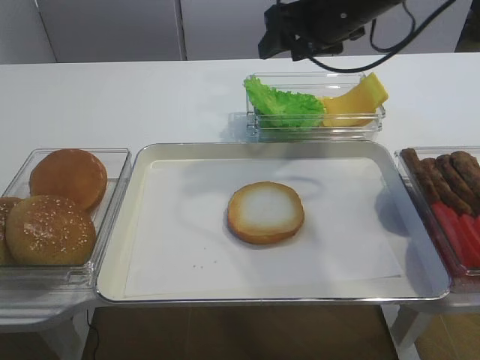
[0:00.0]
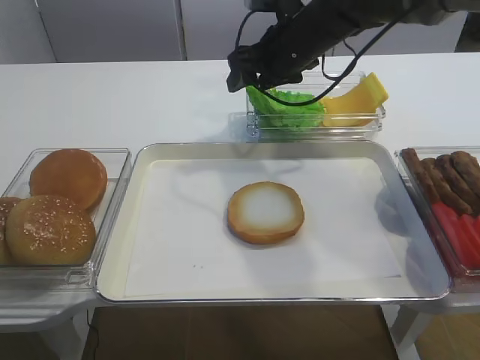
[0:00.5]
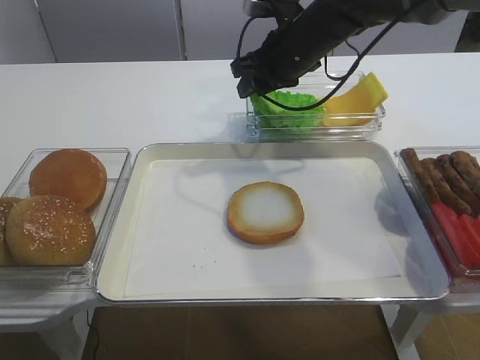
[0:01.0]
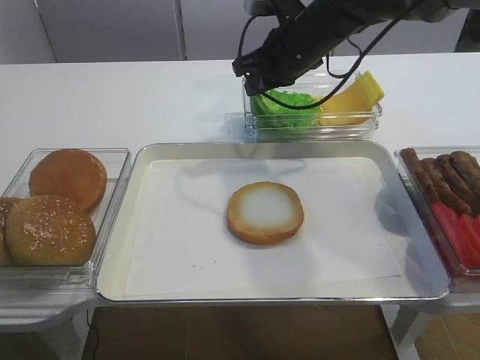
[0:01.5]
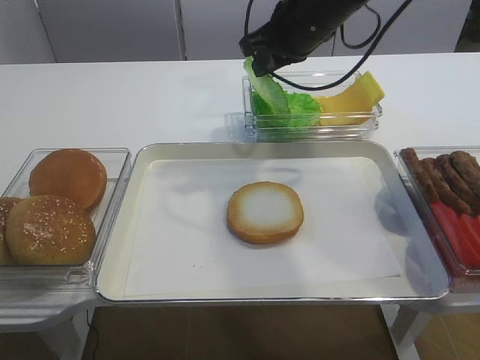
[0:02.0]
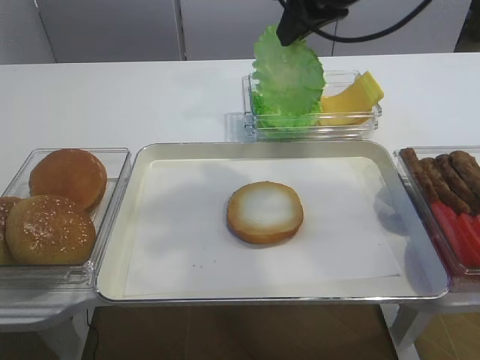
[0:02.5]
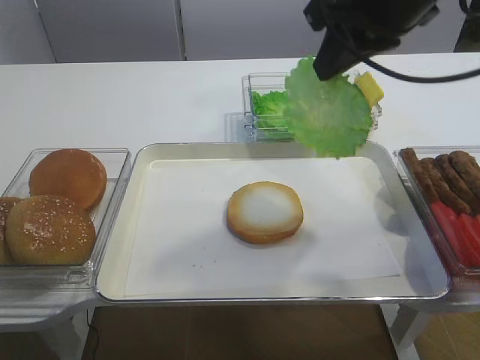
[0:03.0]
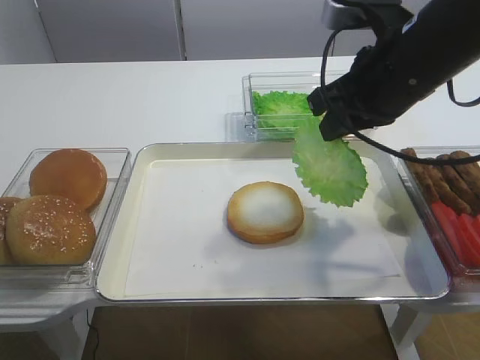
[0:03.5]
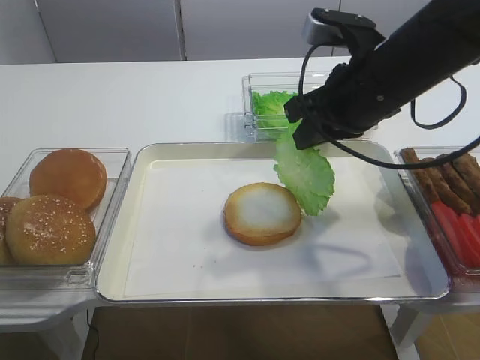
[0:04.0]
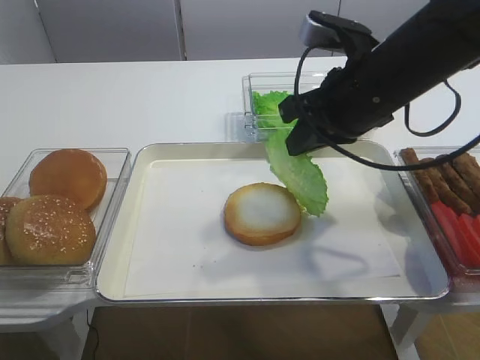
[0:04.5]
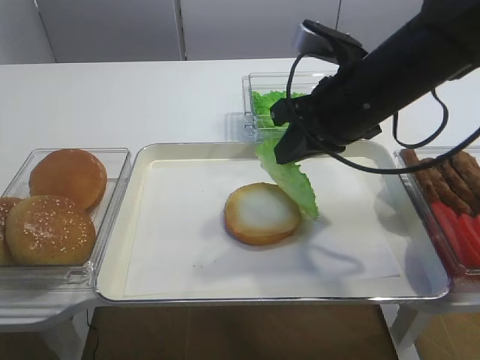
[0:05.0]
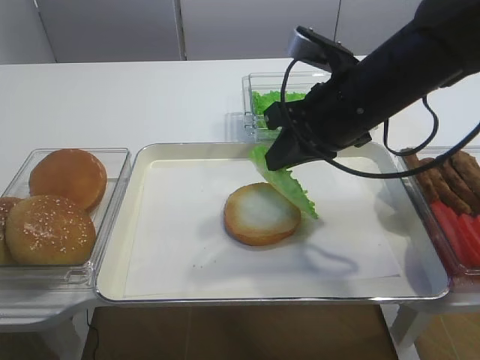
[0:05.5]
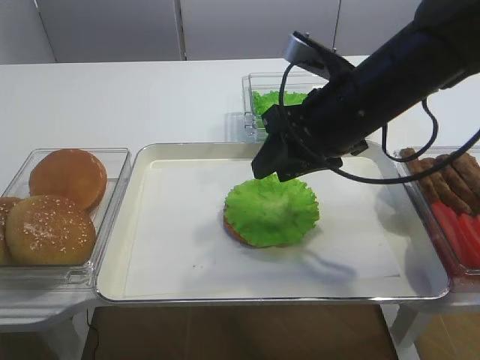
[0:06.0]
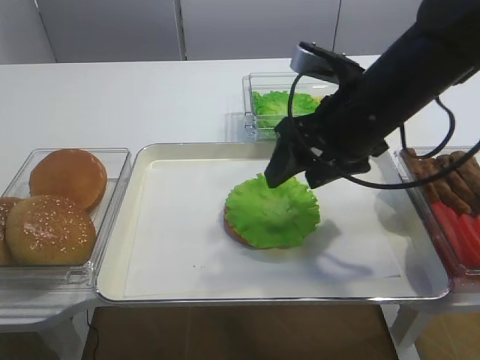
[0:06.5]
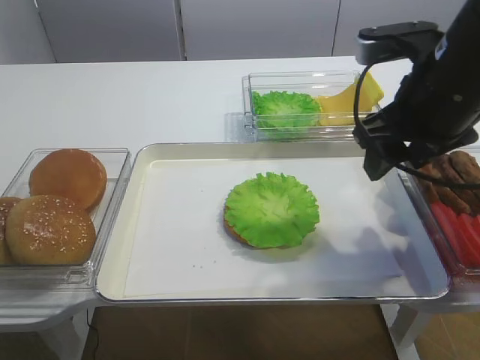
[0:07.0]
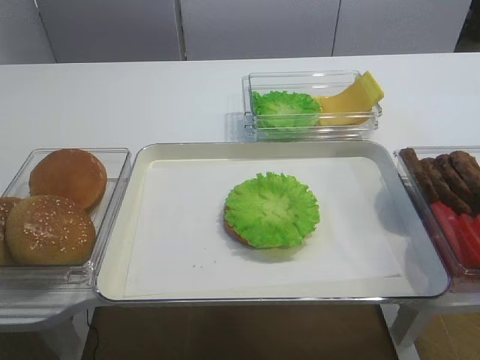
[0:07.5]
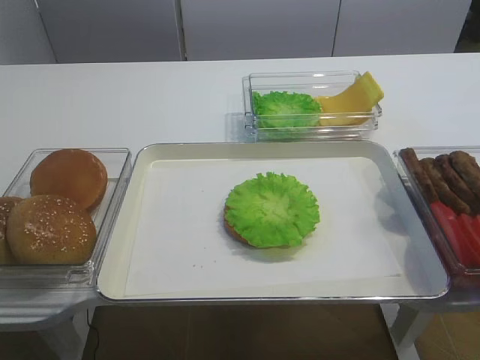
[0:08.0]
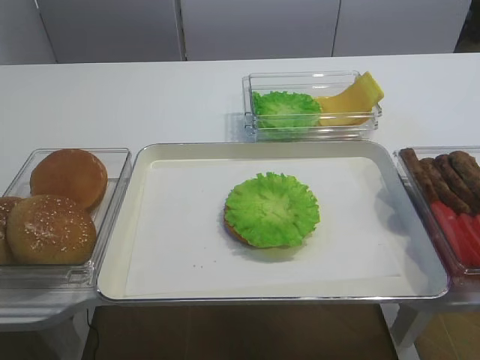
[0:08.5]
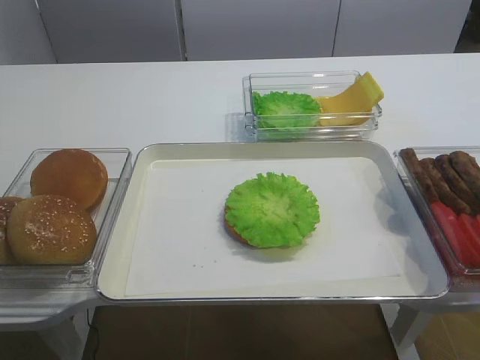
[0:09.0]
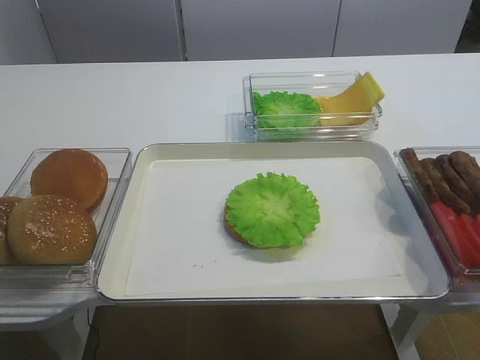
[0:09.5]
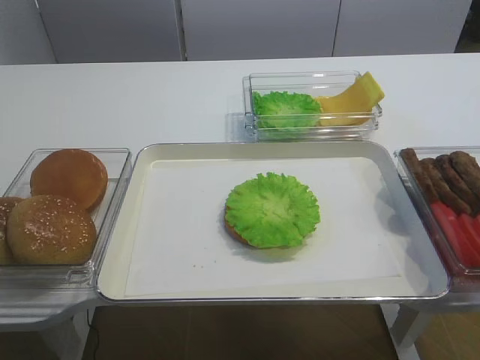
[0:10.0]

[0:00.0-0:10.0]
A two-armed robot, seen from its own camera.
Step, 0:00.0 to 0:02.0: Pick up the lettuce leaf with the right gripper.
Step, 0:02.5 to 0:06.0: Place the lettuce leaf on the bread slice with the right gripper.
0:00.0 to 0:02.0: The right gripper closes its fingers.
0:02.0 to 0:04.0: The right gripper heads backward, covering approximately 10 cm.
0:04.0 to 0:06.0: The right gripper opens up.
0:06.0 to 0:08.0: The right gripper moves backward and to the right, approximately 25 cm.

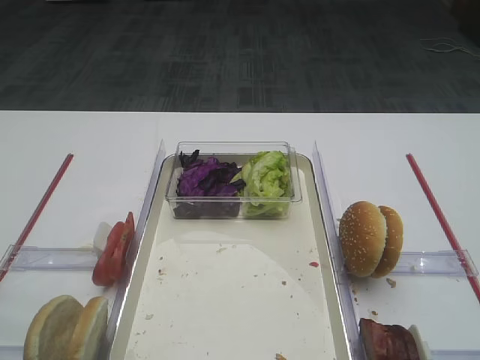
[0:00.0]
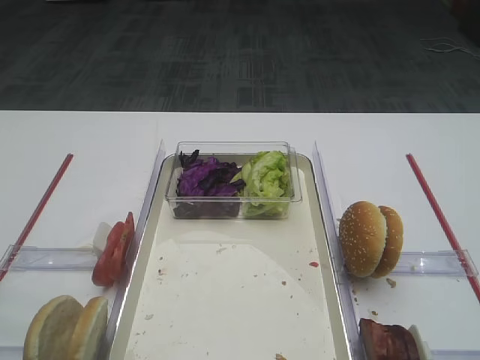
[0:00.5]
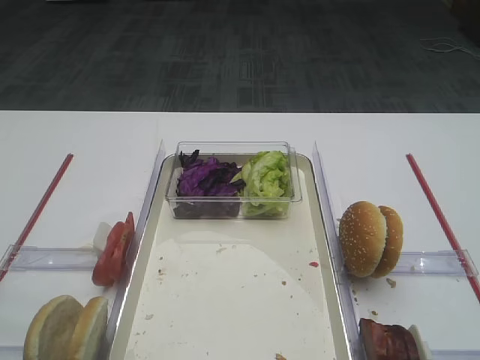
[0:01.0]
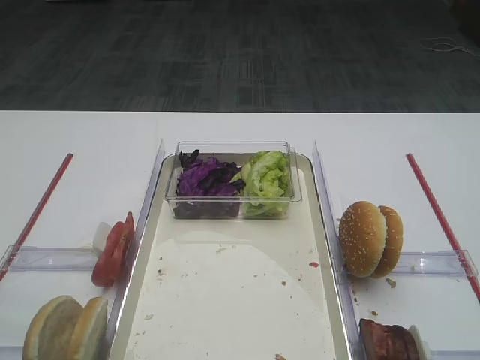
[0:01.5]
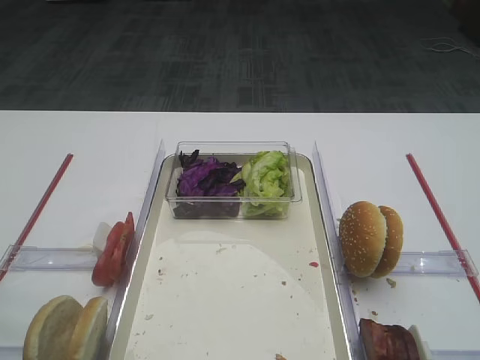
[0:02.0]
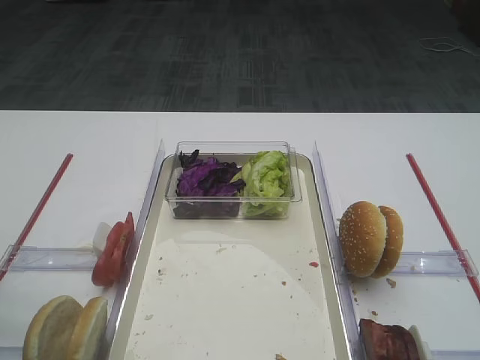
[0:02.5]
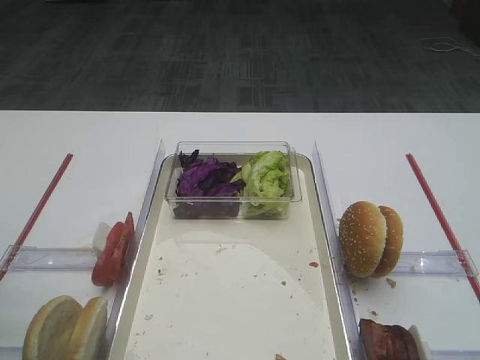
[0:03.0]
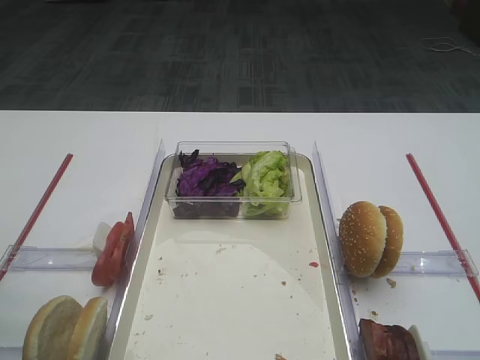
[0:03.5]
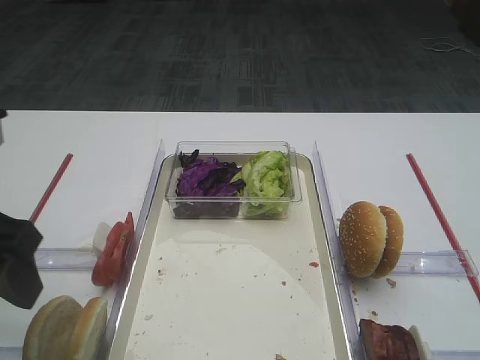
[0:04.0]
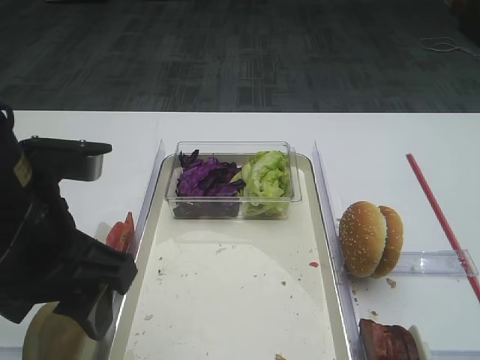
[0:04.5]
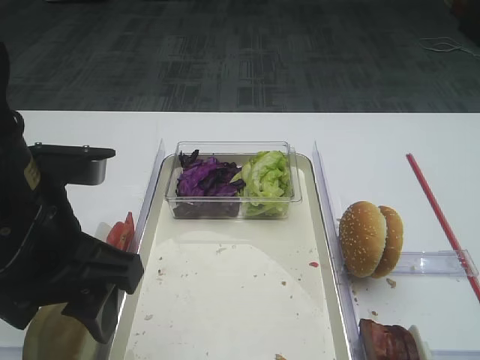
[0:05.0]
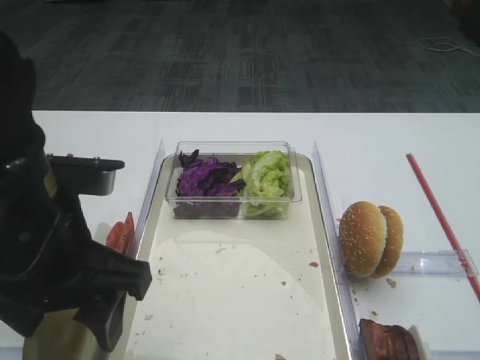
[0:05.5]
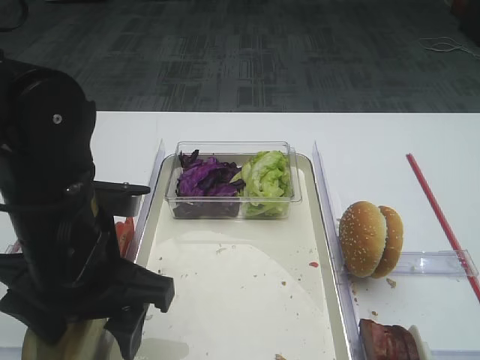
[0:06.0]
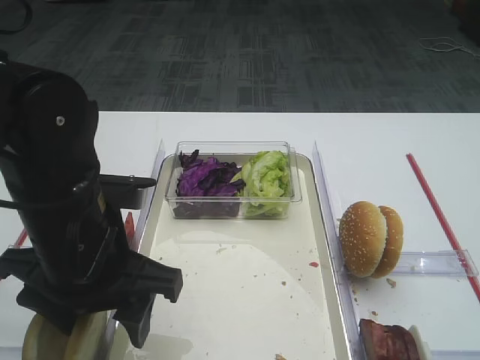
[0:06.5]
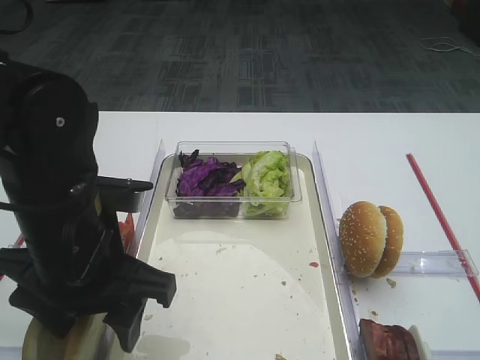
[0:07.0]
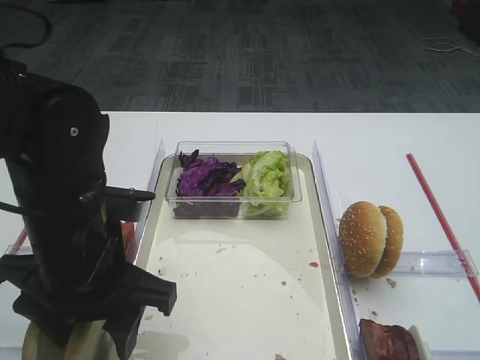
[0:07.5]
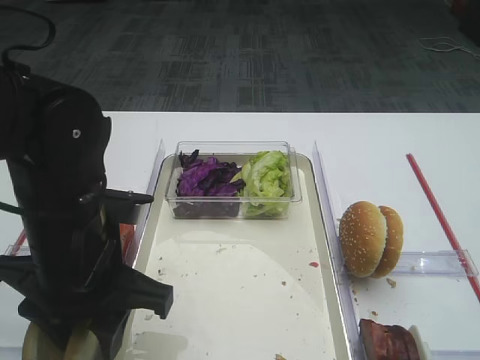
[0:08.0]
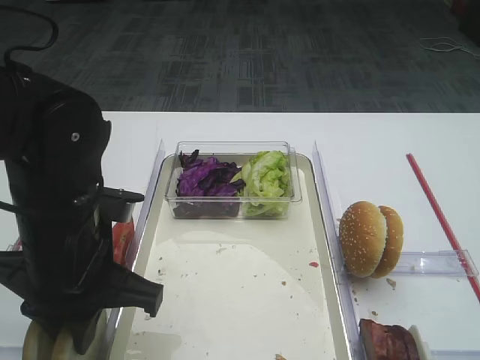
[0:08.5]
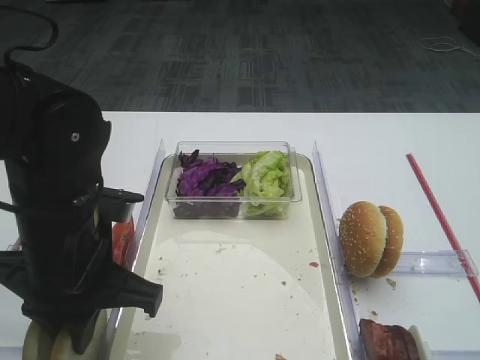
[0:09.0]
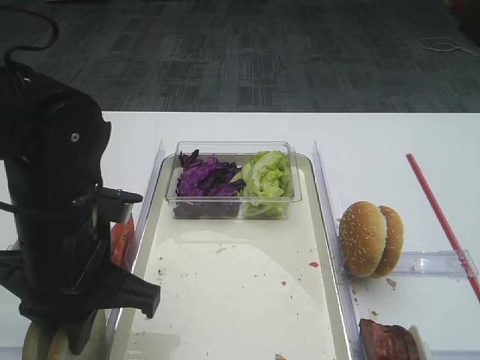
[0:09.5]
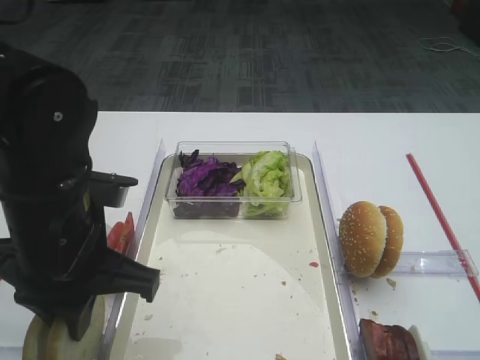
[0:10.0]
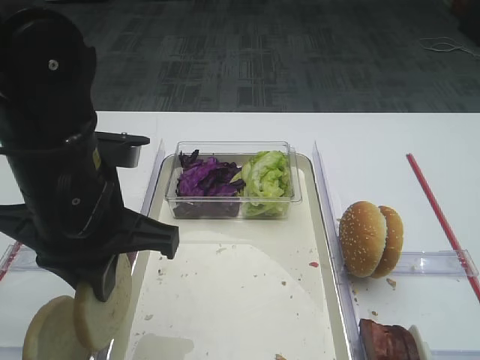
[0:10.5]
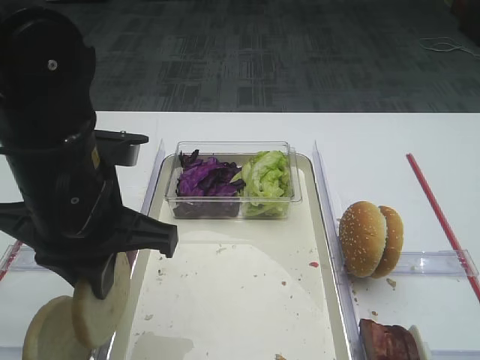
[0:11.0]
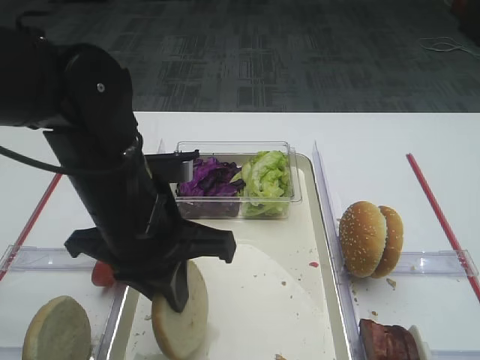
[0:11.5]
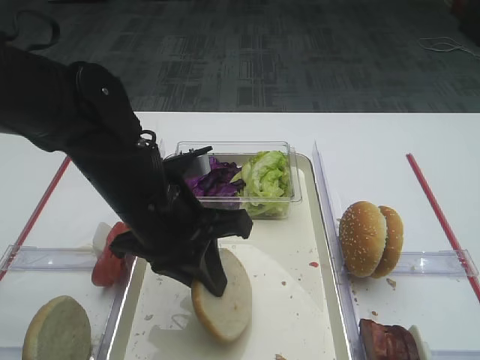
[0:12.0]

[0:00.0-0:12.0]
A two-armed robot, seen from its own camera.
Step, 0:00.0 to 0:10.5: Pick up the bread slice with the left gripper.
0:02.0 to 0:04.0: The left gripper is displaced forward by approximately 10 cm.
0:04.0 to 0:06.0: The left gripper shifts roughly 10 cm to the right and downward.
0:06.0 to 0:08.0: The left gripper closes up.
0:08.0 to 0:10.0: The left gripper closes its fingers.
0:10.0 to 0:12.0: The left gripper moves to the right and forward, some 5 cm.

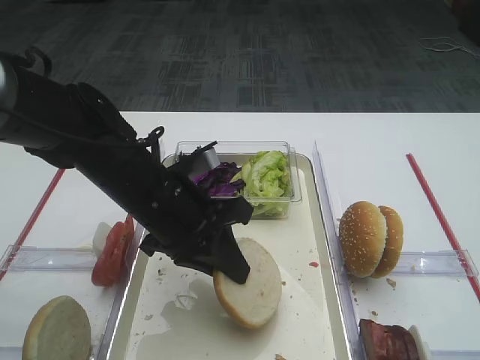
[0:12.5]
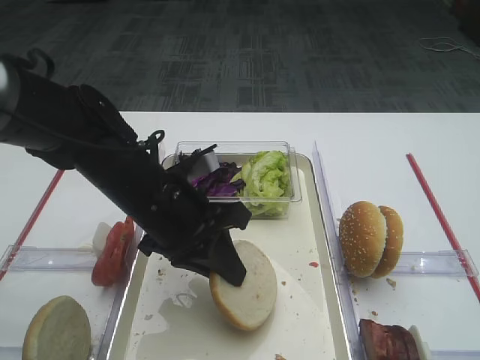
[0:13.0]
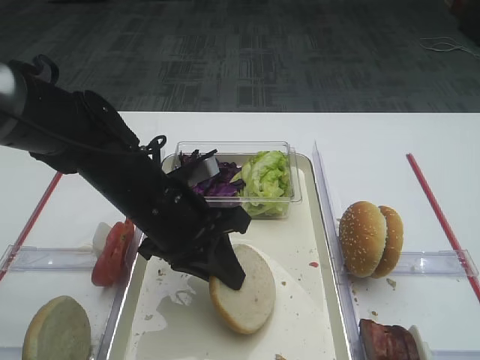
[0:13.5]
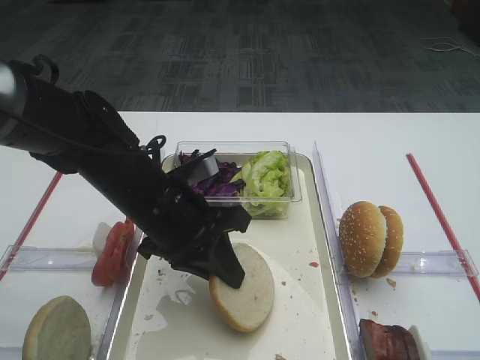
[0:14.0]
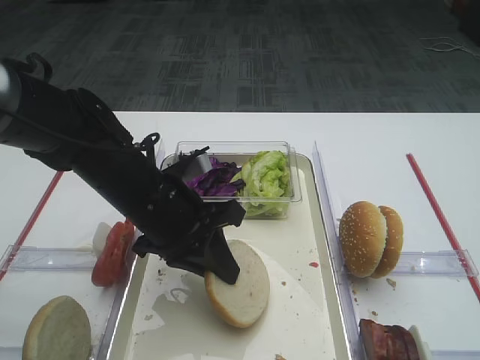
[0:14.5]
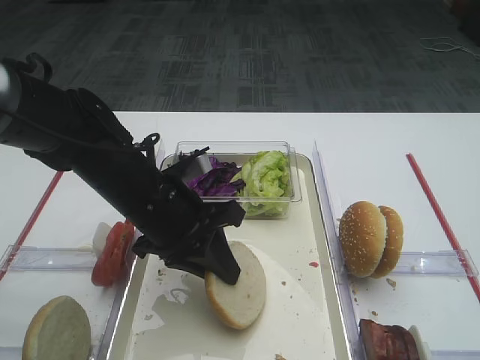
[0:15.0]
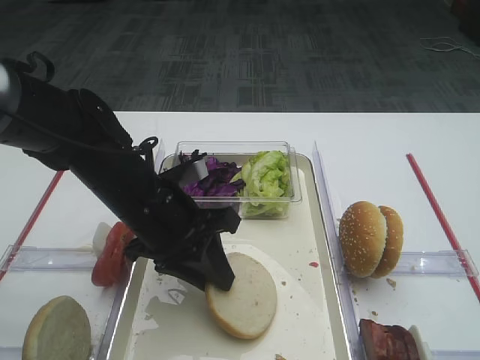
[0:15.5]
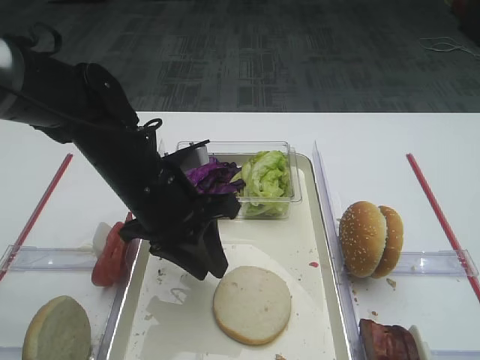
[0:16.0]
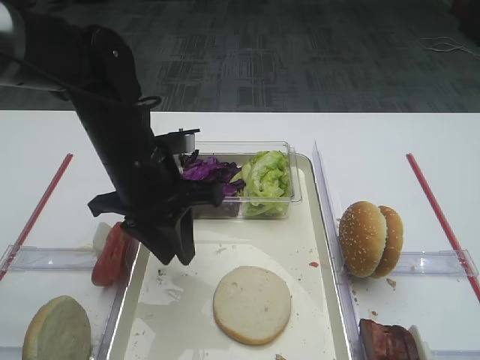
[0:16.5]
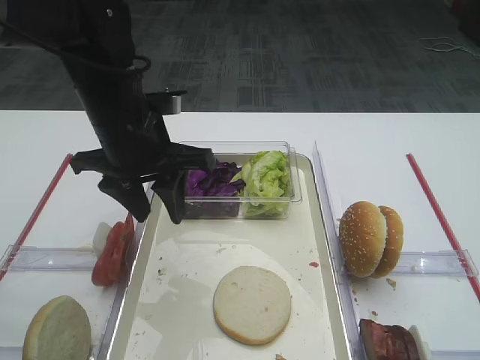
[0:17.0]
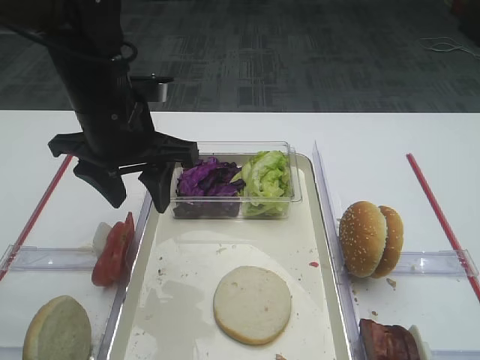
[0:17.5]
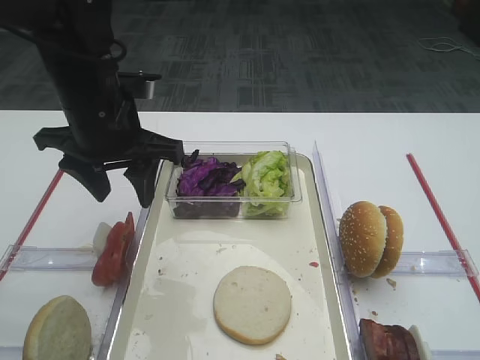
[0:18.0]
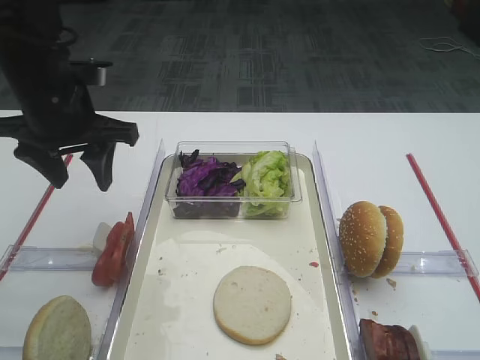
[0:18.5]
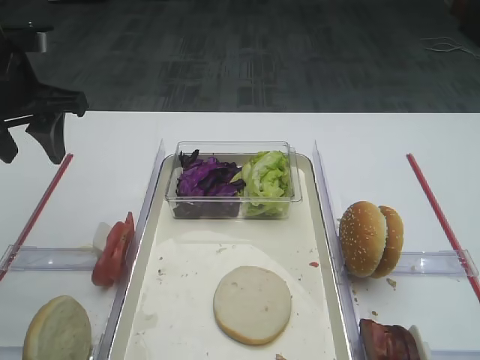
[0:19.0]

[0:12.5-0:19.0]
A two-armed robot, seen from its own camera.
Step, 0:12.5 to 0:16.0: Place the bread slice on the tray with the left gripper.
0:12.5 to 0:14.5: Neither gripper changes place.
0:14.5 to 0:17.0: The left gripper is displaced upward by about 5 cm, and opens up.
0:17.0 to 0:19.0: The left gripper shifts roughly 15 cm to the left and upward.
